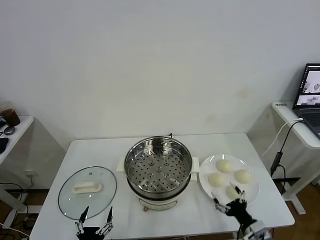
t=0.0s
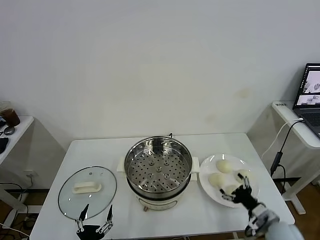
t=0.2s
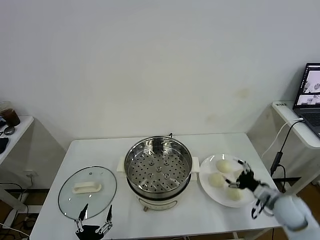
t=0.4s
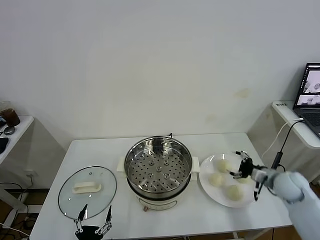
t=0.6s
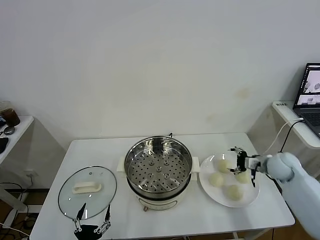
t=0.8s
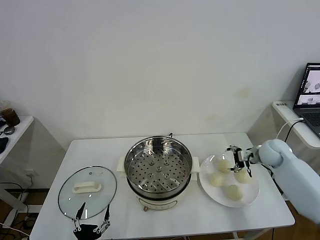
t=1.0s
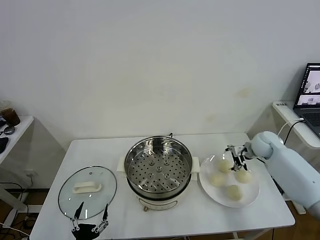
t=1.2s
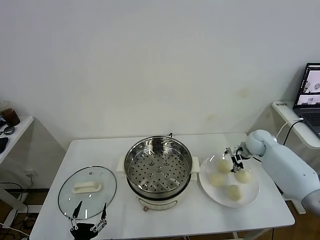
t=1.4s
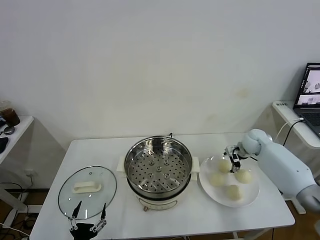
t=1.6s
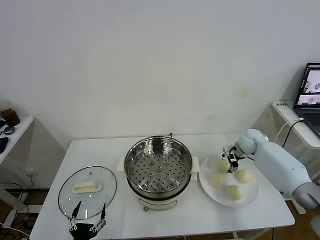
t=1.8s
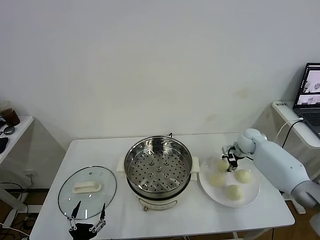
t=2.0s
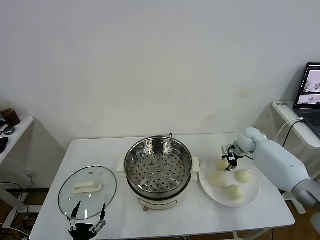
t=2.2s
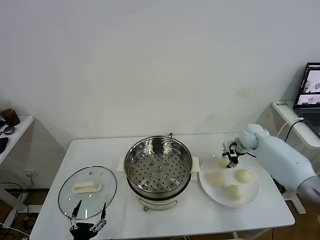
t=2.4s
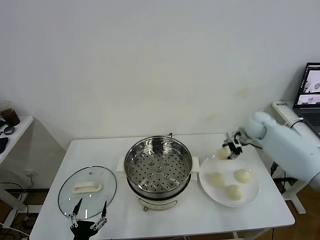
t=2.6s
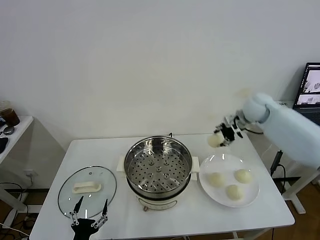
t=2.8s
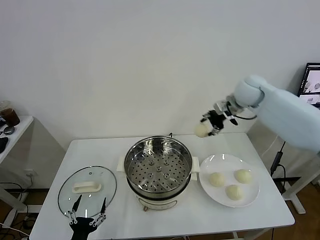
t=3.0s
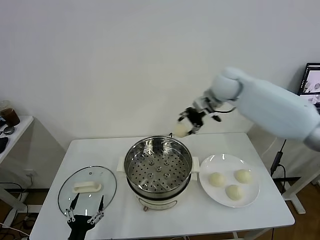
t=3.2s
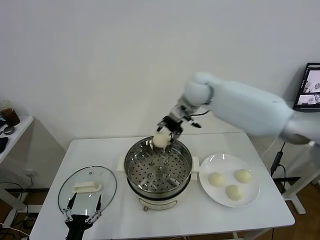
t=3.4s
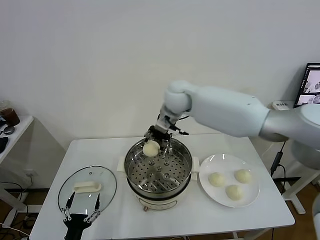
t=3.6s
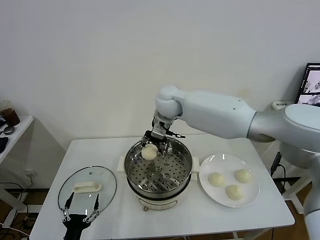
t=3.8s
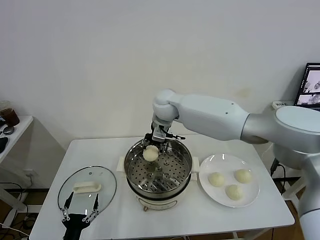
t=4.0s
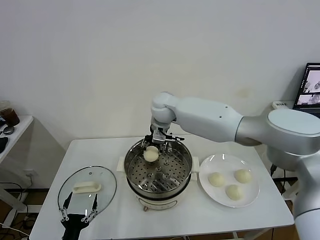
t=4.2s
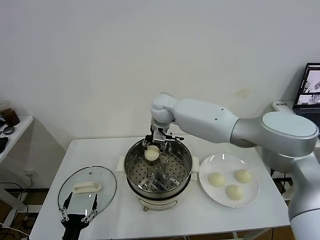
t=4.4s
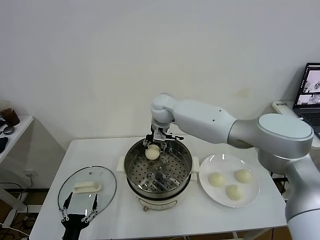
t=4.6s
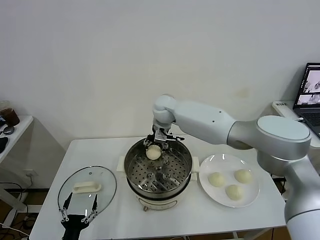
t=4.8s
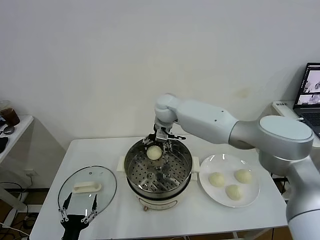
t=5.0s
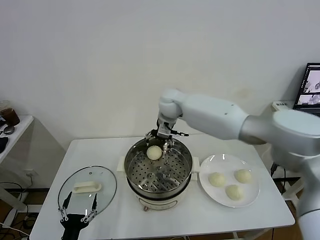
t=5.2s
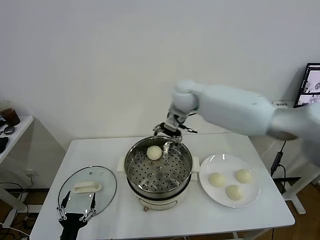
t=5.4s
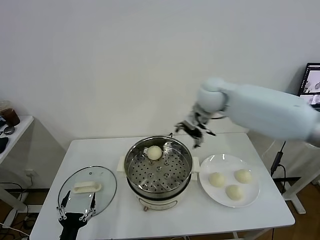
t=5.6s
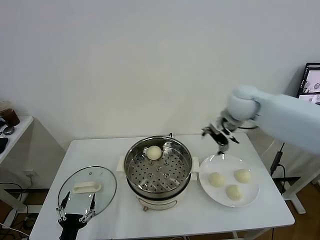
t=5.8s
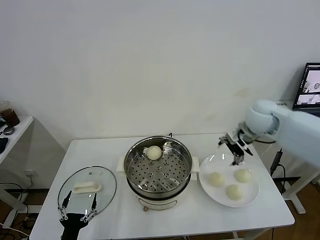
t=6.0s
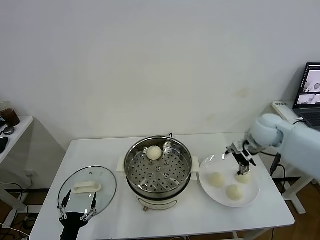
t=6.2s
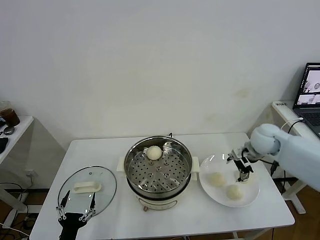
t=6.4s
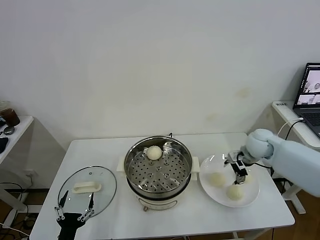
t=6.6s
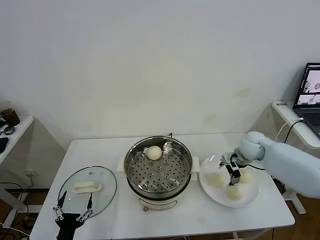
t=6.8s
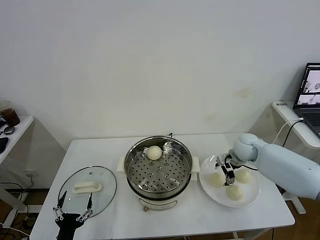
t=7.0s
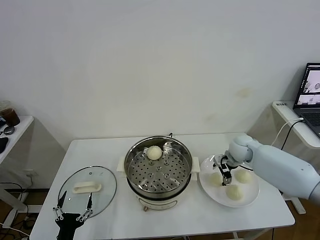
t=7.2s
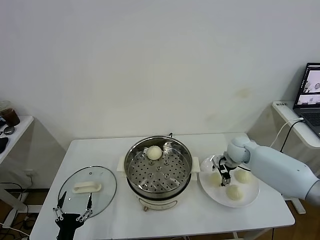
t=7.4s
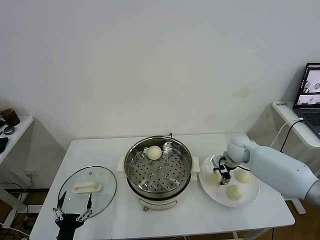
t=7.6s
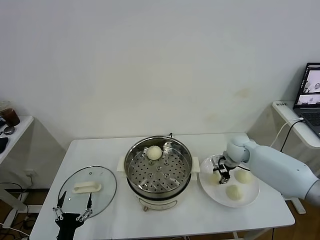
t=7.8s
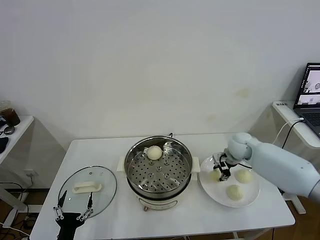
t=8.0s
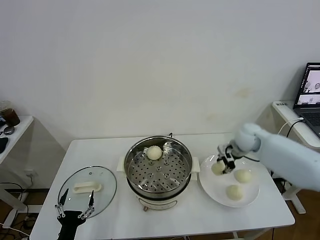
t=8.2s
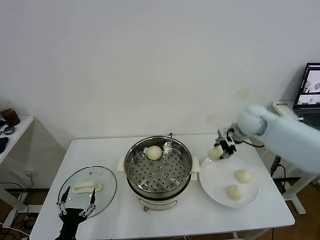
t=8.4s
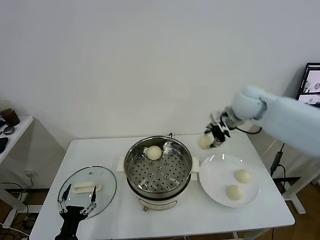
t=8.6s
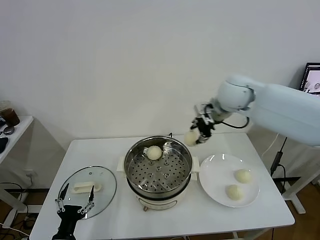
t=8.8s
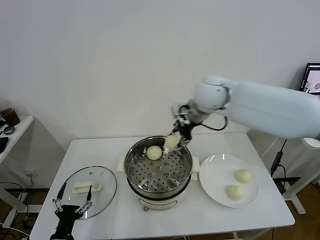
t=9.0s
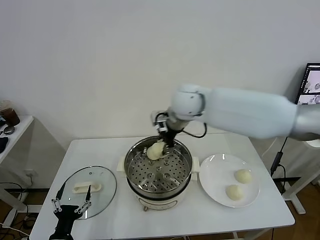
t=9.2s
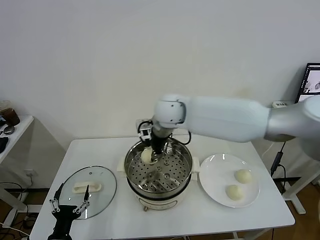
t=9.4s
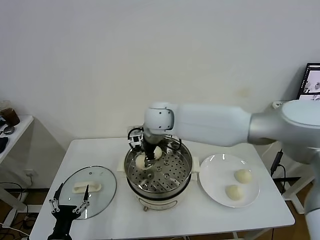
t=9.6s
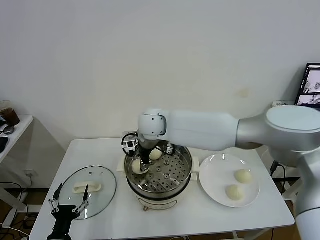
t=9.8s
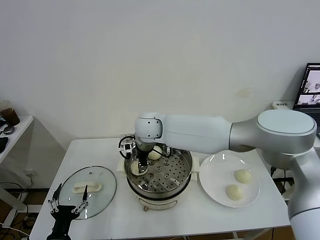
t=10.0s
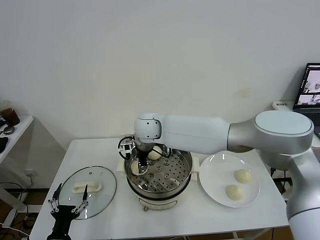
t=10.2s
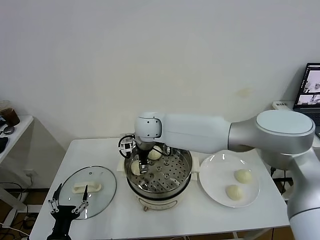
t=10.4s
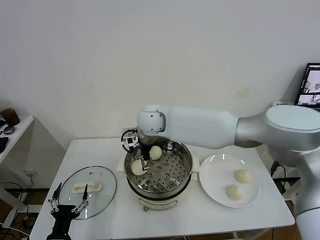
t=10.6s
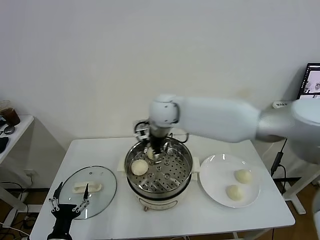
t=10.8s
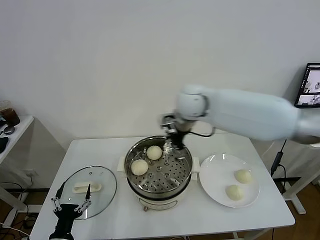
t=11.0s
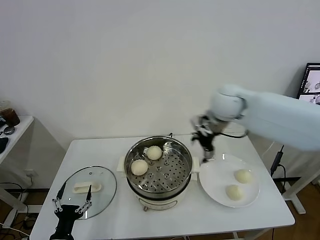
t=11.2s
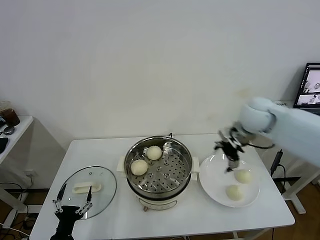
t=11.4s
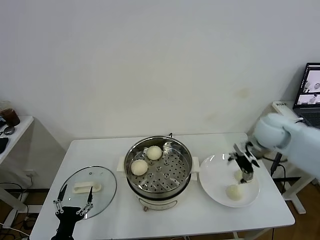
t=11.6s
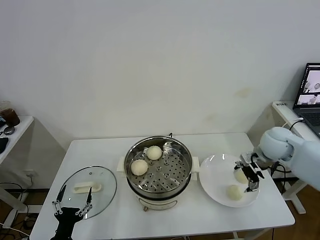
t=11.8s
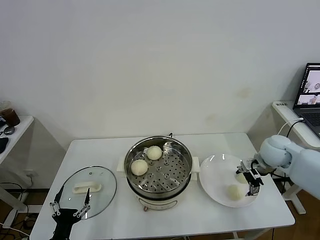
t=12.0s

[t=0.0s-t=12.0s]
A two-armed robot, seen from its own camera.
Task of the whole recording: take steamed baozi put them in steamer.
Step, t=0.0s to t=2.0s: Grasp the baozi in the plate with right gripper.
Step, t=2.2s to t=5.2s: Place the baozi on the steamer with right gripper.
Step, t=5.4s to t=7.8s: Grasp the baozi in the plate with right gripper.
Step, t=8.0s to t=10.4s: Place the baozi on the steamer with right gripper.
t=1.6s to t=3.0s: The right gripper moves upward and to the left, some 30 cm, and closes.
t=3.0s to t=4.4s: The right gripper goes roughly 25 cm to the left and downward.
t=4.4s to t=6.0s: The right gripper travels to the right by about 30 cm, and opens.
t=6.0s to t=7.6s: The right gripper heads downward, covering roughly 15 cm, and closes up.
t=7.6s to t=9.0s: The right gripper goes about 30 cm upward and to the left.
t=9.0s to t=10.4s: The right gripper travels to the left and downward by about 15 cm, and opens its fingers.
t=10.4s to t=12.0s: The right gripper moves to the right, some 40 cm.

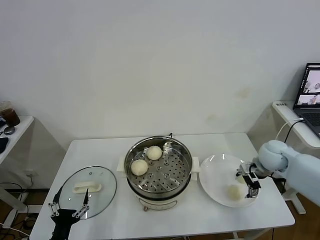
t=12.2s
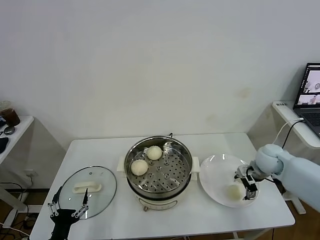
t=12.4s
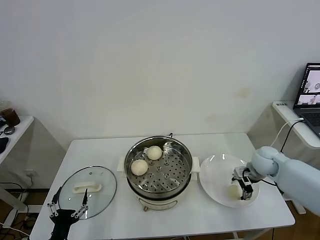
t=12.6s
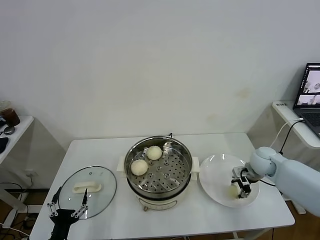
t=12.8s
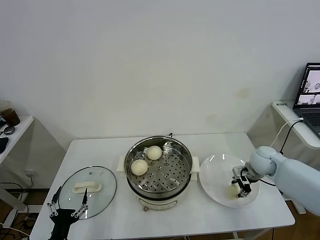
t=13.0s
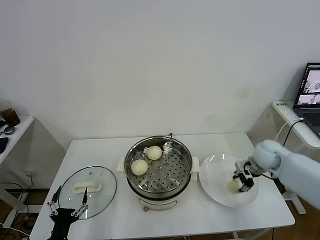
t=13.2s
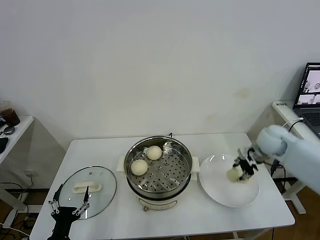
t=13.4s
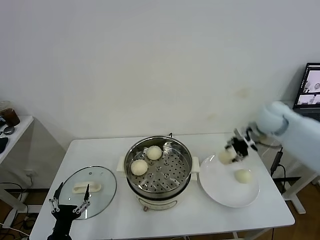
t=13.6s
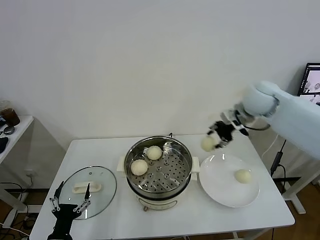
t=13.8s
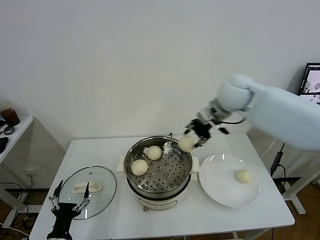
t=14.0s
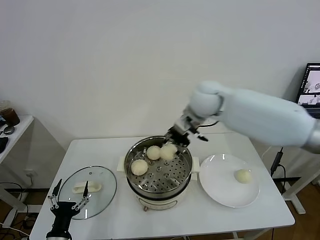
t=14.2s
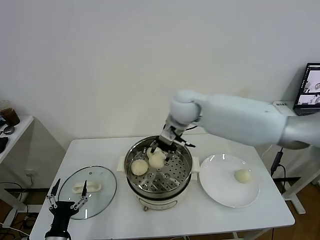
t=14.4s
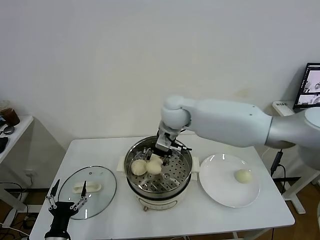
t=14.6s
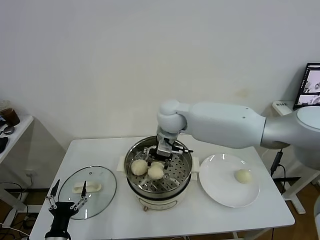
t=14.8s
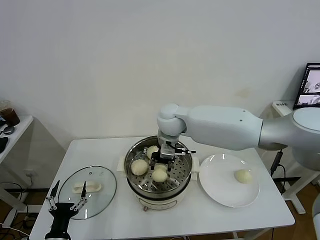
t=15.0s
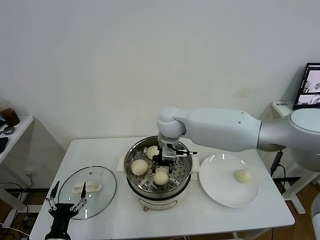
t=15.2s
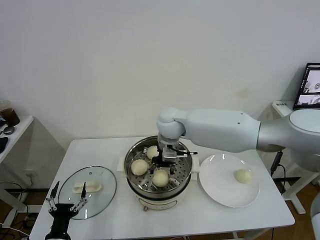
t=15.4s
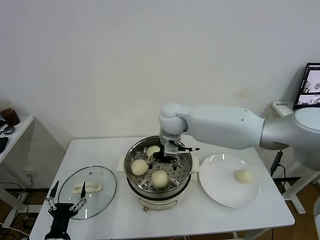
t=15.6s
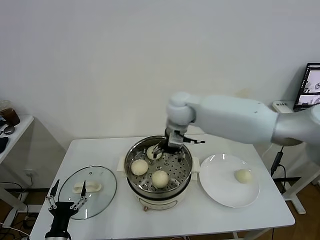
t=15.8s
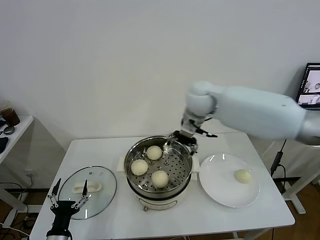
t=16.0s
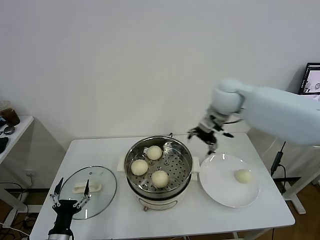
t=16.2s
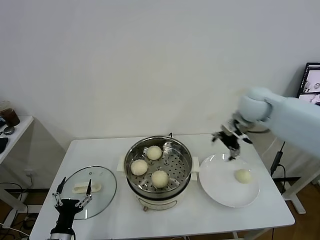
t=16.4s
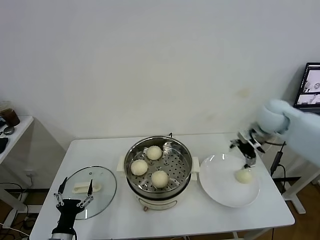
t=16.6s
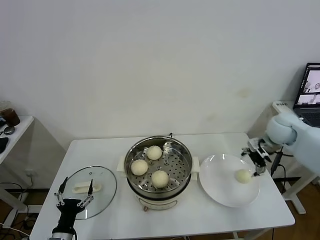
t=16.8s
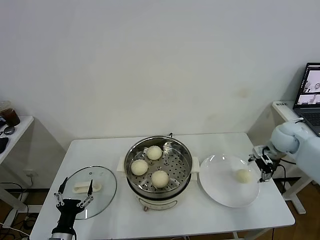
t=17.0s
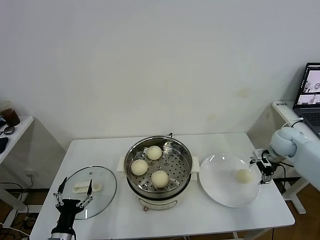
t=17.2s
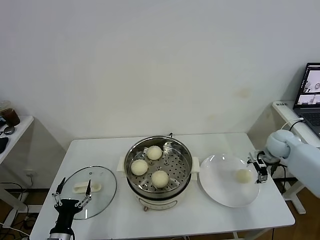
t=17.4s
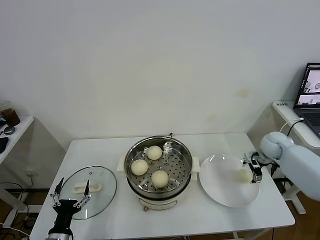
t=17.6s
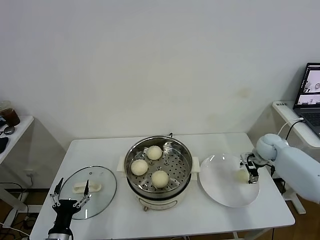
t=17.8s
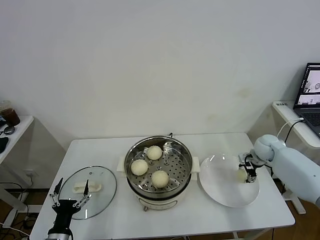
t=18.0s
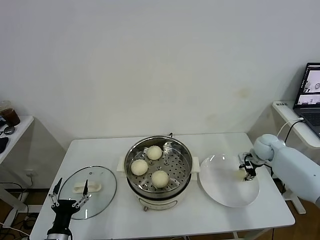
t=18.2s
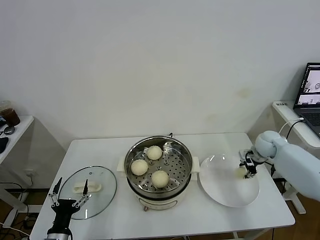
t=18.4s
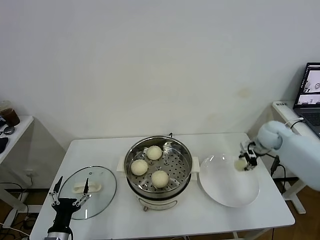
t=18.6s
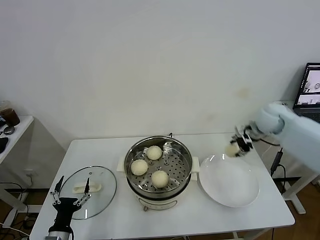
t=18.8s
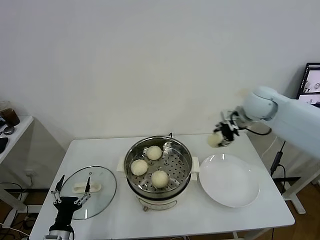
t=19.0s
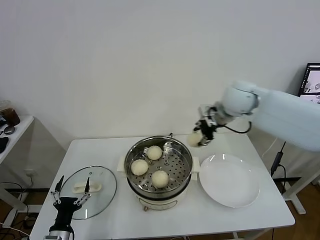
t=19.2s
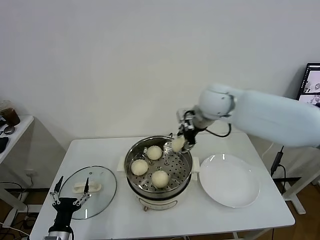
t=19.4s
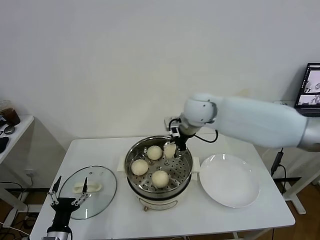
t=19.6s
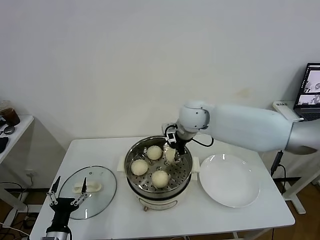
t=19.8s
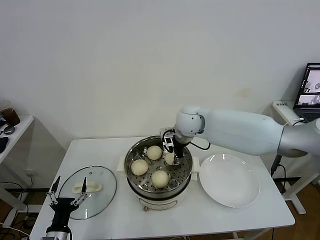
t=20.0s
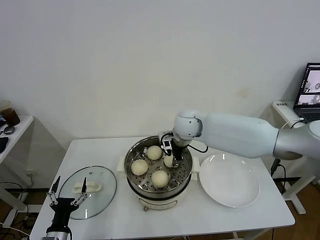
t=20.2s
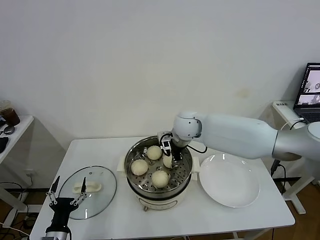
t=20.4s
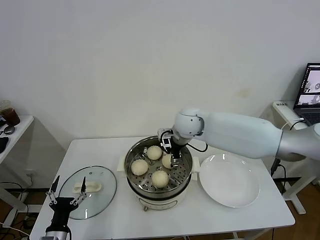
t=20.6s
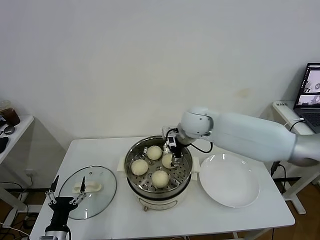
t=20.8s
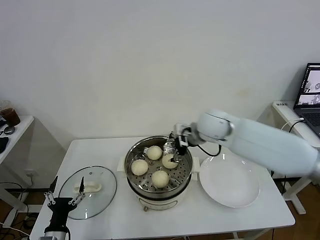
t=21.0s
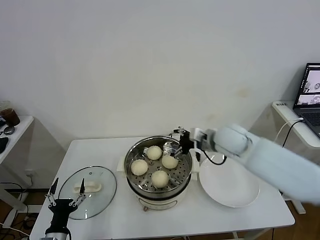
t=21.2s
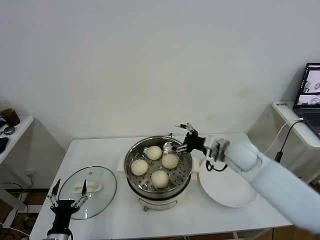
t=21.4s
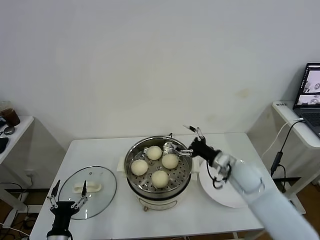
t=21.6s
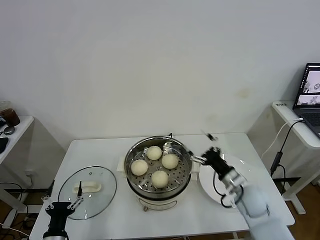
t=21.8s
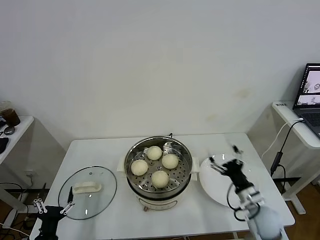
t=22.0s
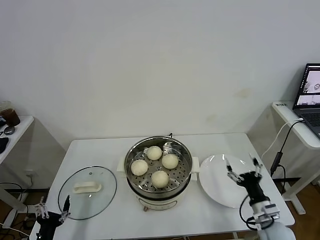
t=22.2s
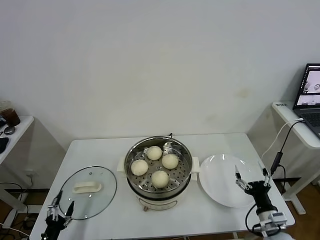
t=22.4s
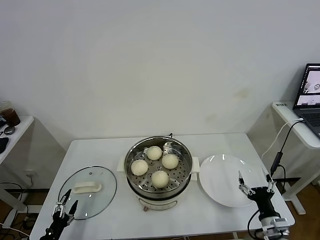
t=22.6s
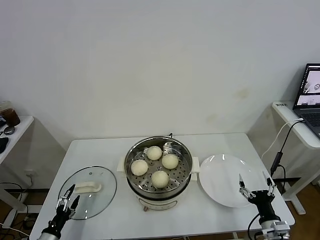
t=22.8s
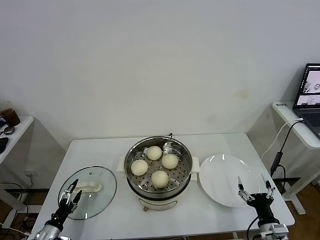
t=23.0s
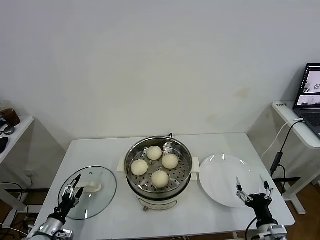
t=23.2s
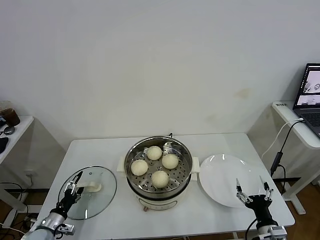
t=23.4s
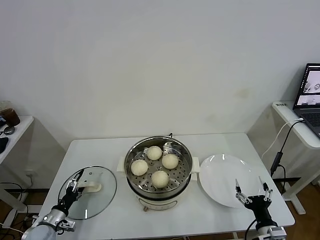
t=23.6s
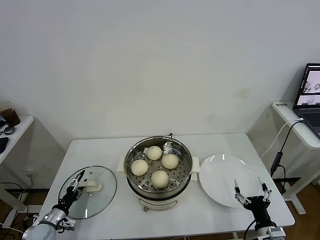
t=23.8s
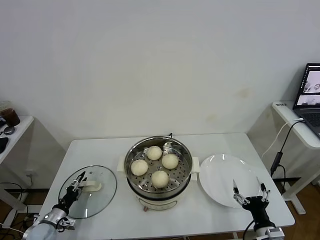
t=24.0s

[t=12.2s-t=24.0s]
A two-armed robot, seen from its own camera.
Task of the whole recording: take steamed baozi put them in steamer.
Step, t=13.2s to t=15.6s: Place the baozi on the steamer with right gripper.
Step, t=15.8s to t=18.2s: Grasp the baozi in the plate with right gripper.
Step, t=18.4s to t=20.8s: Place the baozi on the steamer with right gripper.
t=12.2s to t=13.6s: The right gripper heads upward and forward, covering approximately 15 cm, and closes its fingers.
t=13.6s to t=15.2s: The right gripper travels to the left by approximately 30 cm.
t=15.2s to t=16.6s: The right gripper is displaced to the right by approximately 35 cm, and opens.
t=16.6s to t=18.2s: The right gripper goes about 15 cm downward, and closes.
t=18.2s to t=19.6s: The right gripper heads to the left and upward, covering approximately 35 cm.
t=19.6s to t=21.0s: The right gripper moves roughly 5 cm, and opens up.
t=21.0s to t=22.6s: The left gripper moves to the left and downward, roughly 10 cm. The right gripper is displaced backward, downward and to the right by approximately 40 cm.
t=22.6s to t=24.0s: The left gripper goes some 15 cm forward, and closes.
